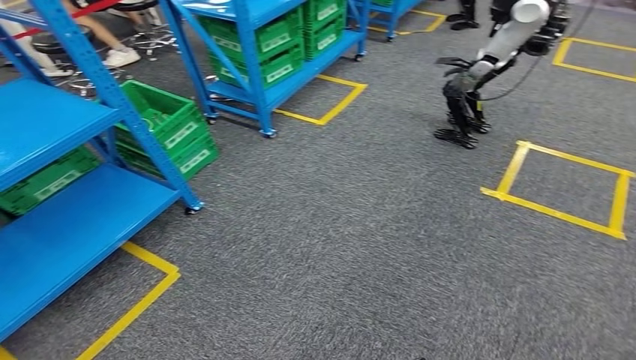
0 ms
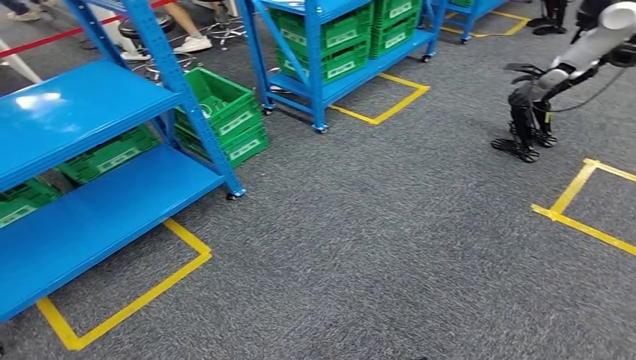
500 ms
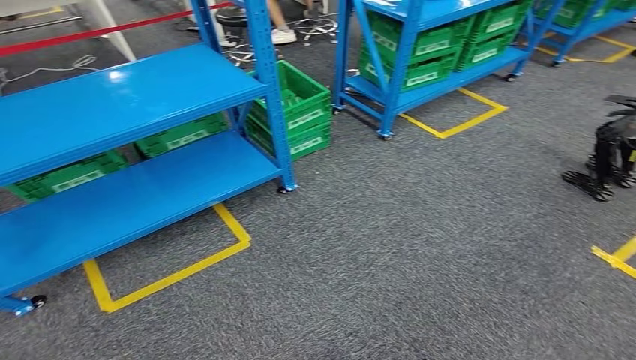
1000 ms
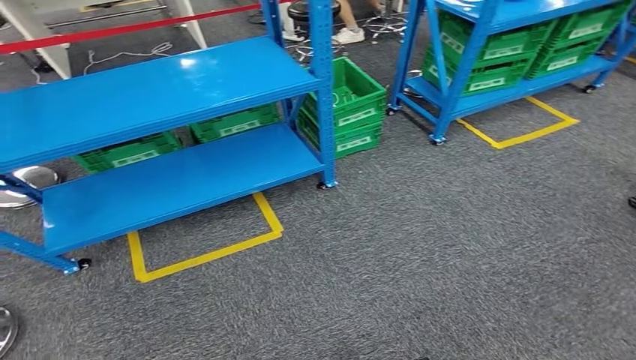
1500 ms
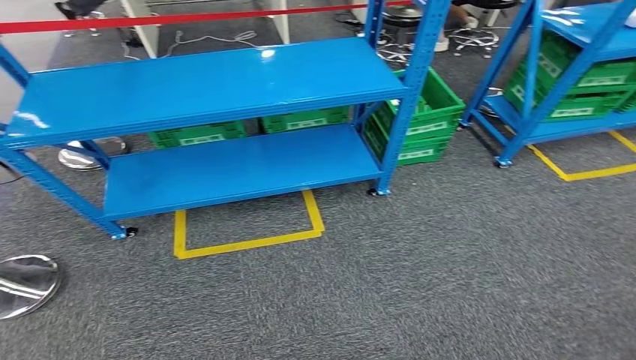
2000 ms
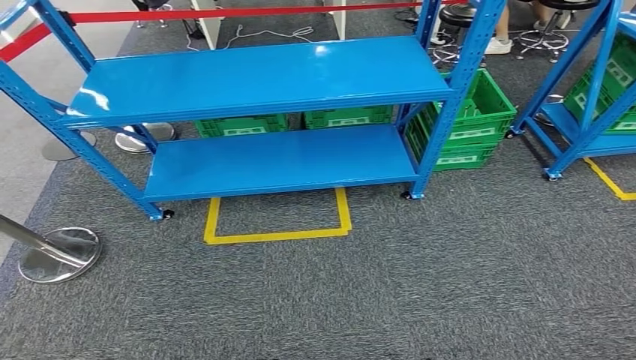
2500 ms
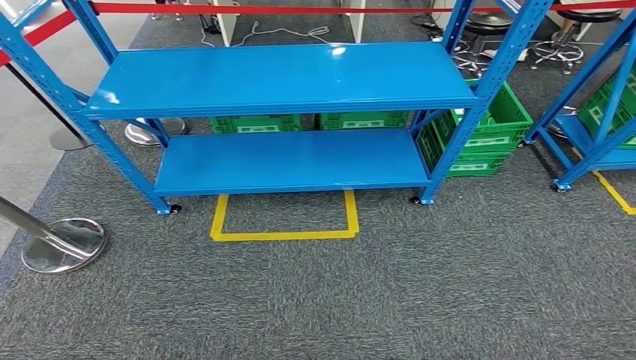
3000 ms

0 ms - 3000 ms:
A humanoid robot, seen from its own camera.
Step, 0 ms - 3000 ms: Return to the initial position at the workbench.
